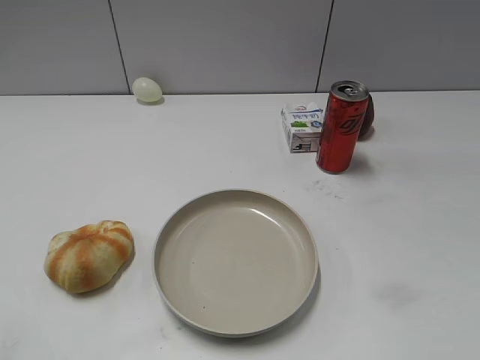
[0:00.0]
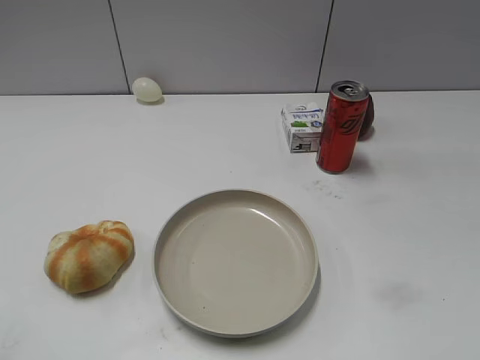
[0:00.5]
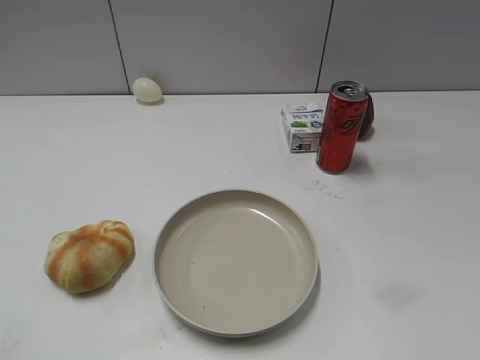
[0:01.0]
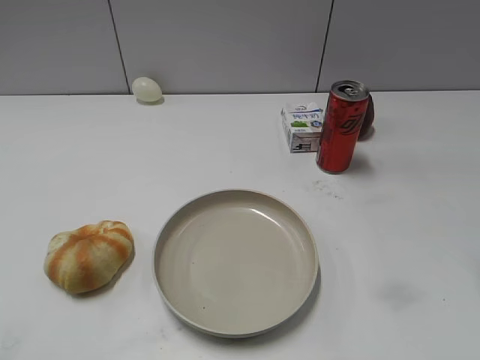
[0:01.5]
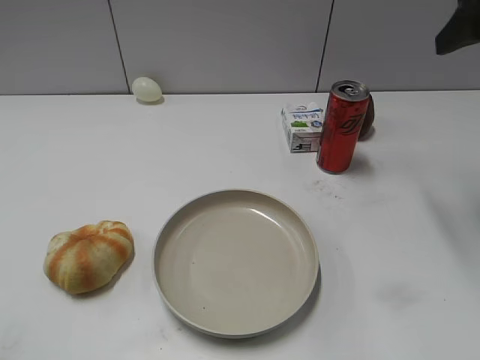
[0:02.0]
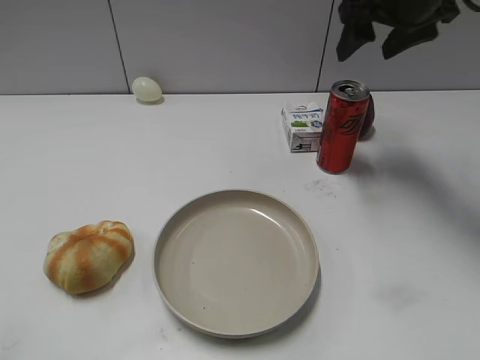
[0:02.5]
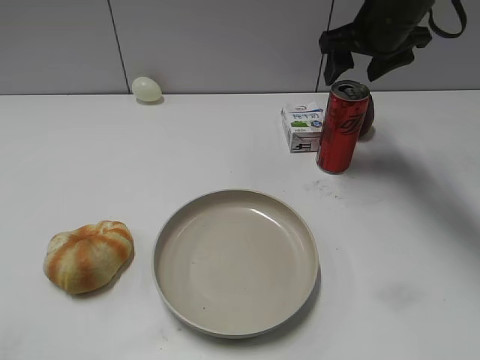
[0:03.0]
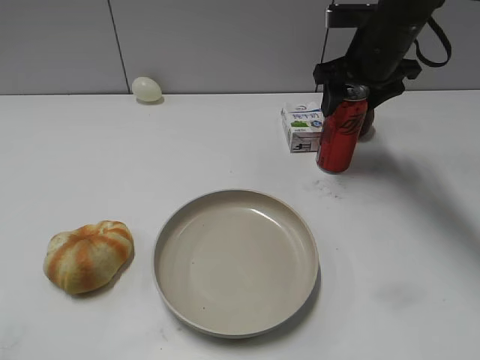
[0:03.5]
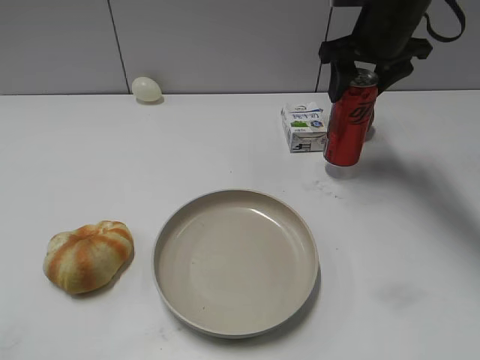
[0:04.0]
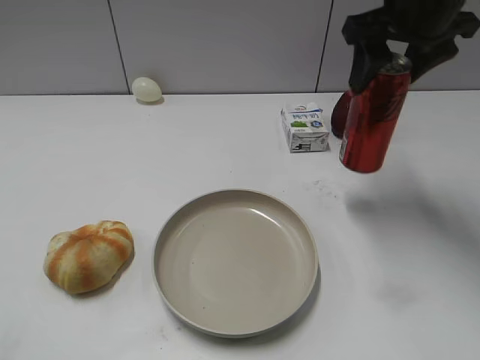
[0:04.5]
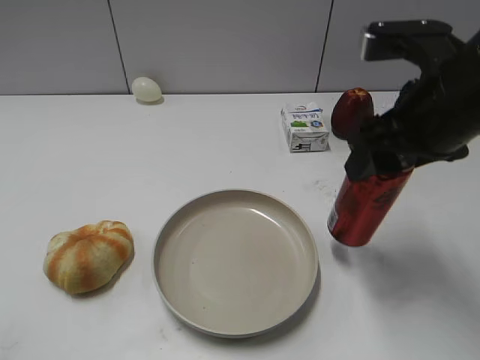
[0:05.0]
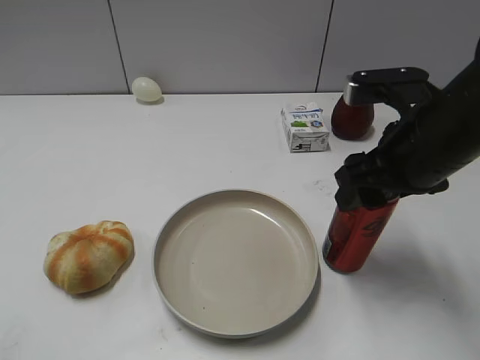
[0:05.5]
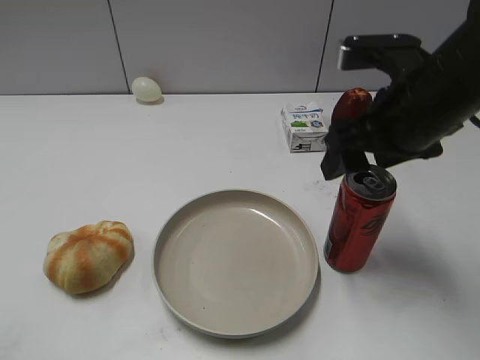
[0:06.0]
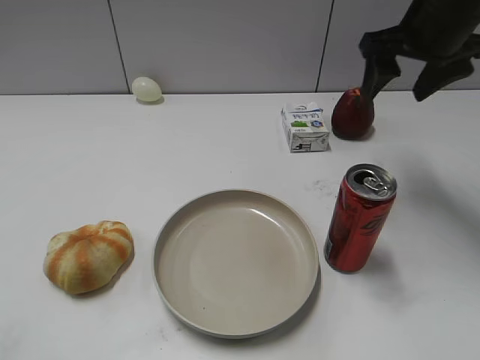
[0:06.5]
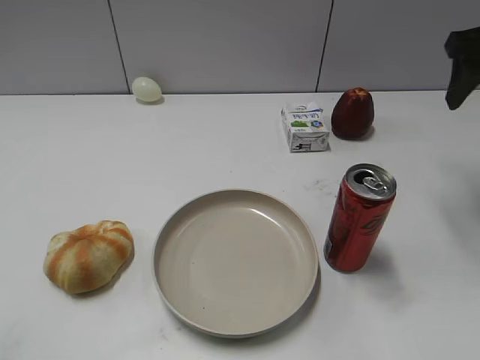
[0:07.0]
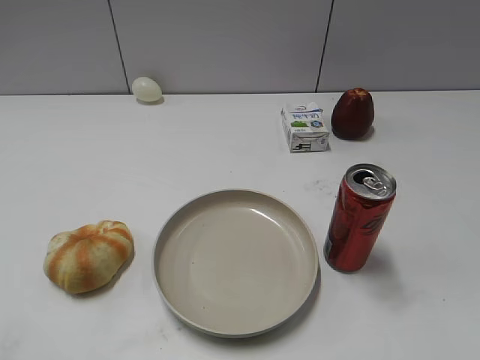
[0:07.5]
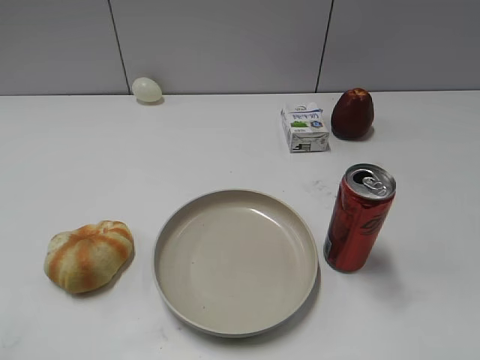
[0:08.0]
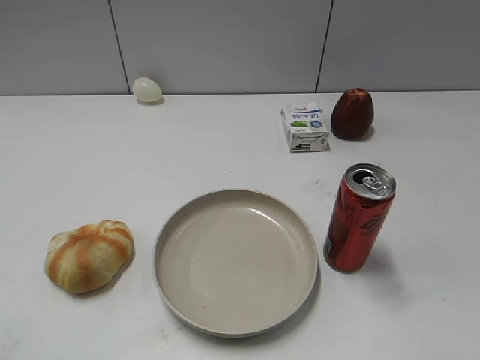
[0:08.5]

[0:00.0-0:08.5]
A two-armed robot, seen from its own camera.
Step, 0:01.0 to 0:03.5: Grasp the cola with right gripper.
Step, 0:04.0 to 0:06.0: Place the cola on the table with right gripper.
0:02.0 to 0:04.0: The right gripper goes about 15 cm forward, to the left and downward, and closes its fingers.
0:04.0 to 0:06.5: The right gripper moves approximately 20 cm backward and comes back, and opens.
0:06.5 to 0:08.5: The right gripper travels backward by roughly 35 cm, and closes.

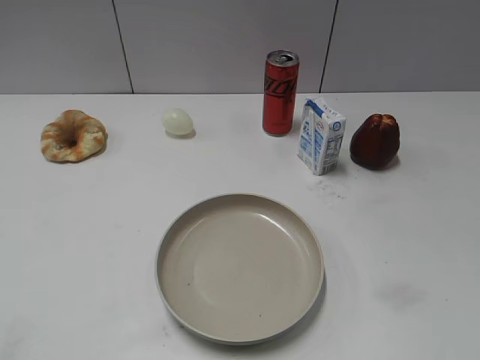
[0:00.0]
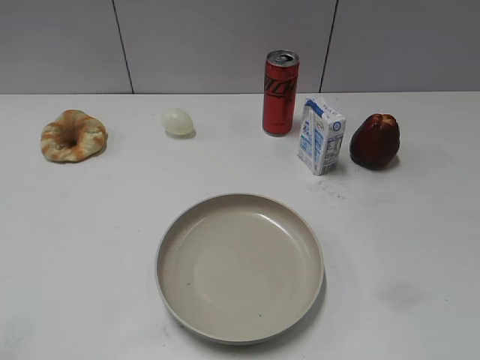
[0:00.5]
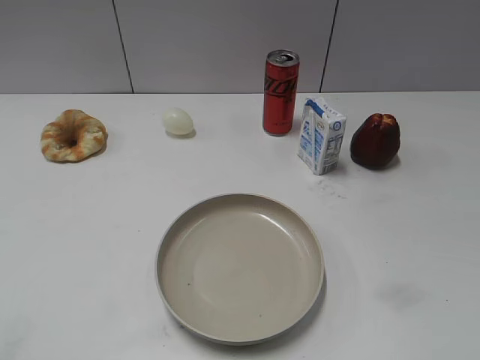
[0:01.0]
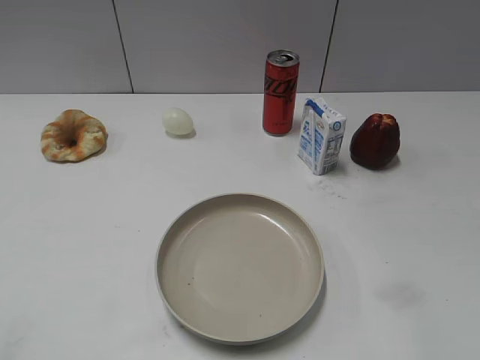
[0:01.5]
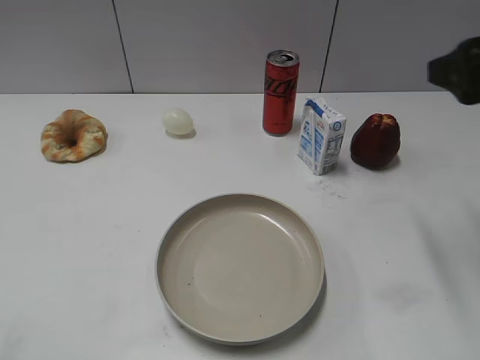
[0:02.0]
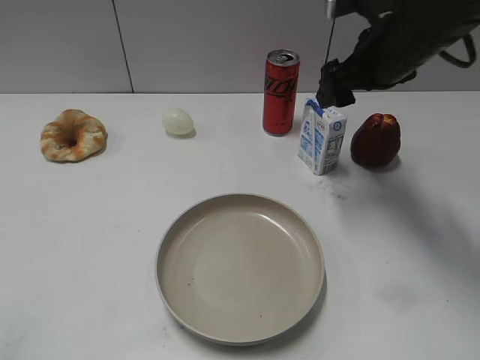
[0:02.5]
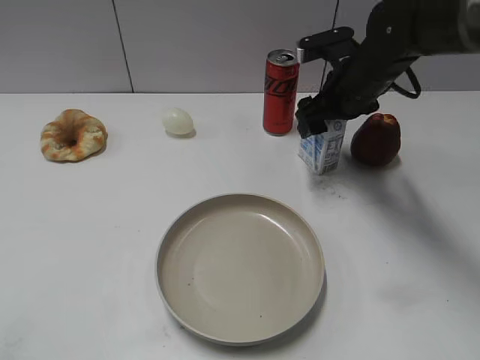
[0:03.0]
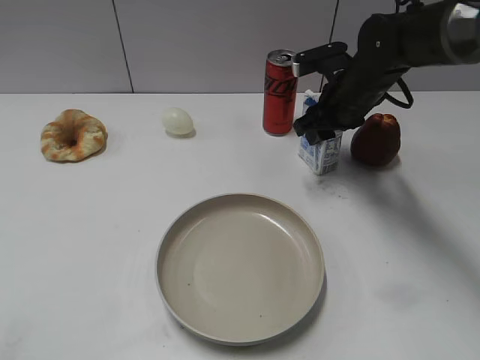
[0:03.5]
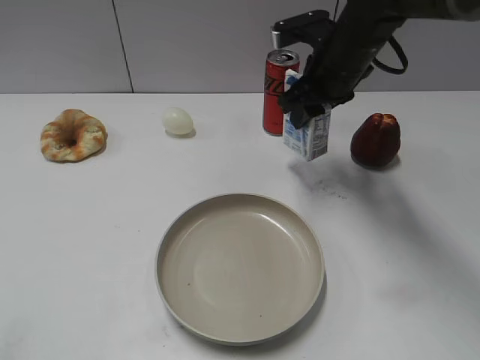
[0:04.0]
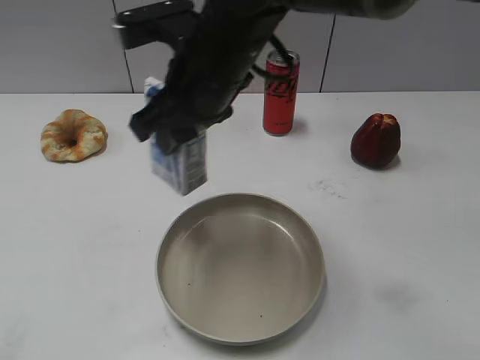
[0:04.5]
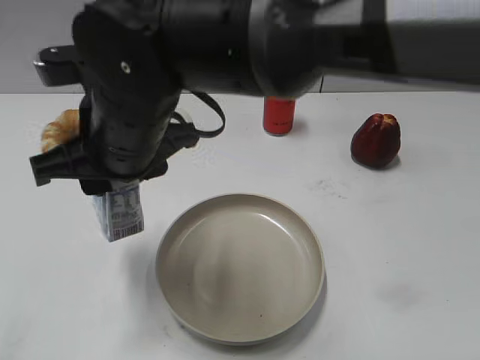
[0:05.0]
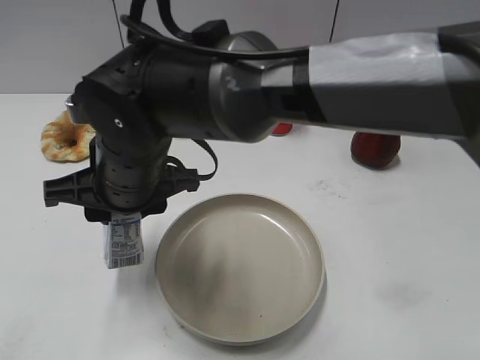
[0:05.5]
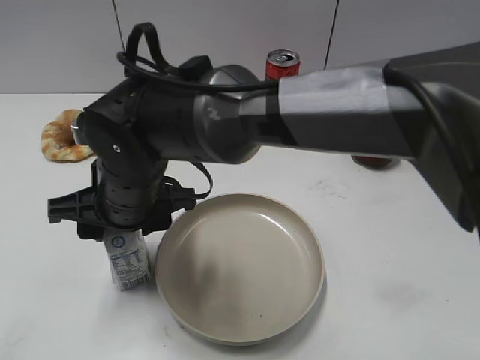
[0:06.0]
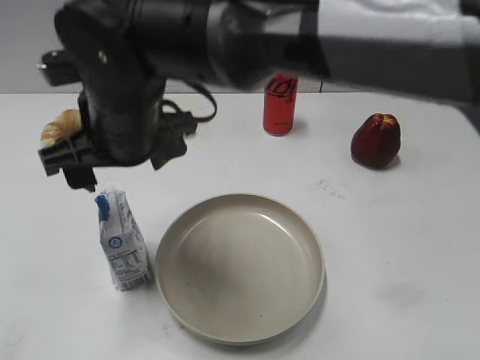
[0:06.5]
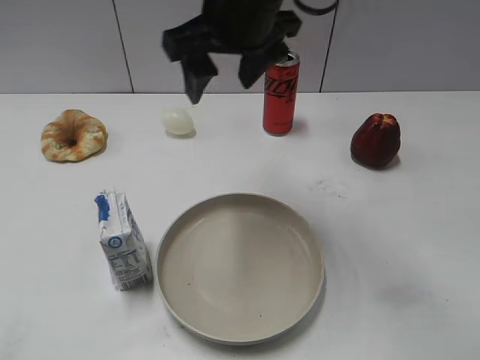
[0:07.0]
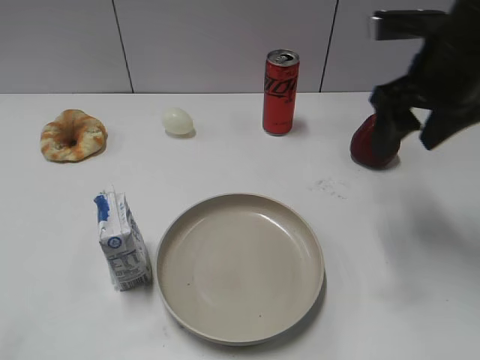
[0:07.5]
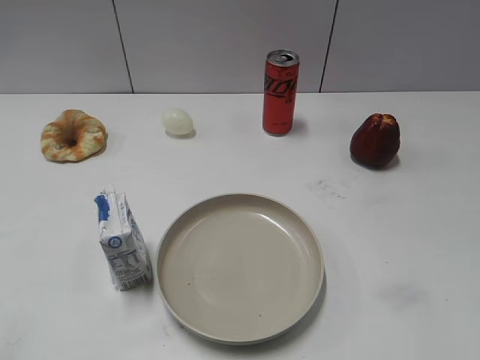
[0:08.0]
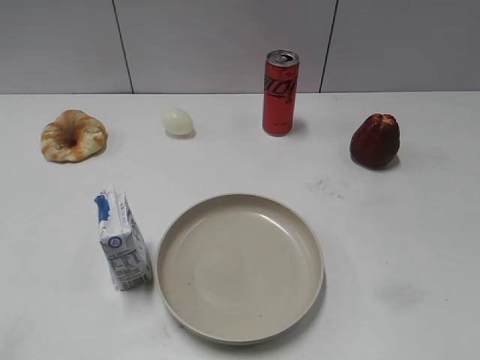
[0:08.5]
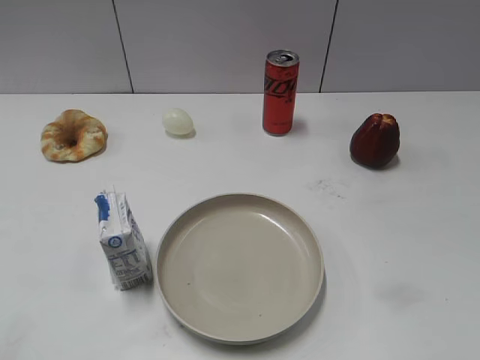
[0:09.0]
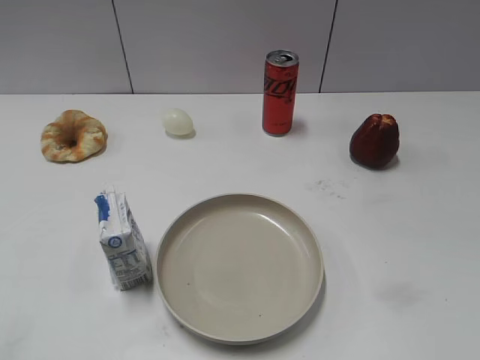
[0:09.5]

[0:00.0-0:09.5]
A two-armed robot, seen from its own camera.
Step, 0:01.0 to 0:03.5: Grasp the milk with right gripper.
Step, 0:04.0 to 0:06.5: Place the milk on the table with right gripper.
0:02.0 to 0:04.0: The right gripper shifts some 25 cm forward, to the left and downward, and closes.
0:04.0 to 0:05.5: The right gripper moves to the left and backward, about 30 cm.
0:05.5 to 0:07.5: The right gripper moves to the right, roughly 30 cm, and opens its fingers.
0:07.5 to 0:09.5: The right gripper is displaced backward by roughly 30 cm.

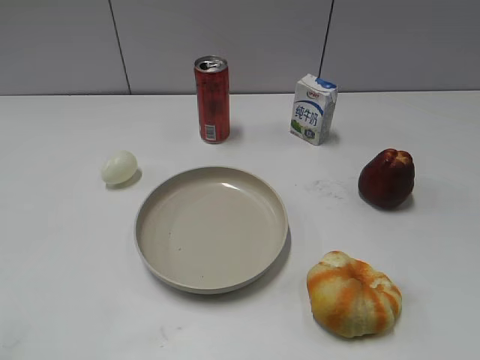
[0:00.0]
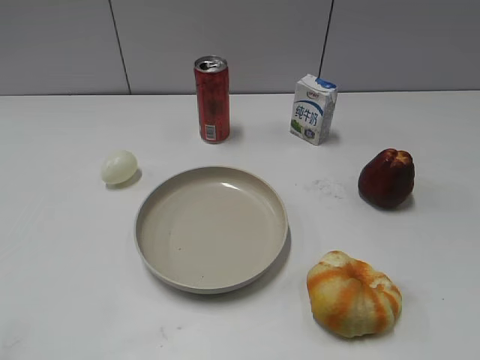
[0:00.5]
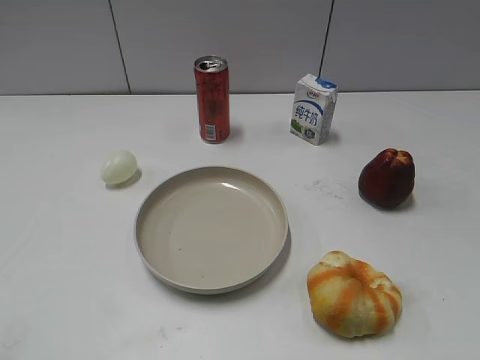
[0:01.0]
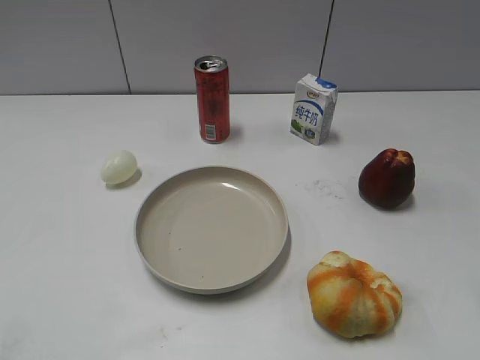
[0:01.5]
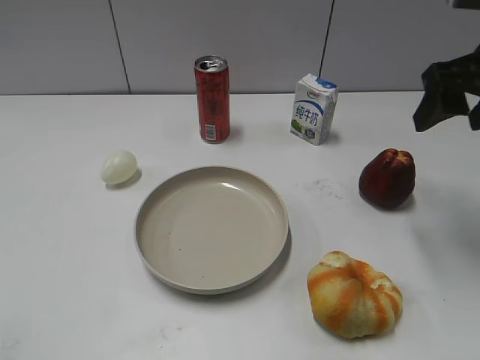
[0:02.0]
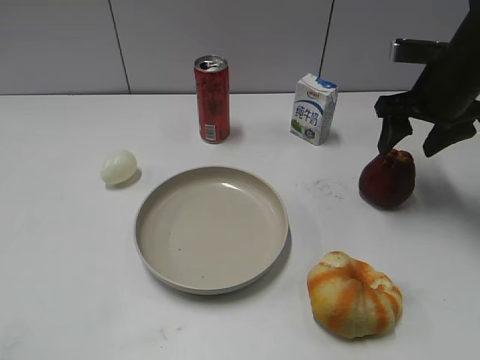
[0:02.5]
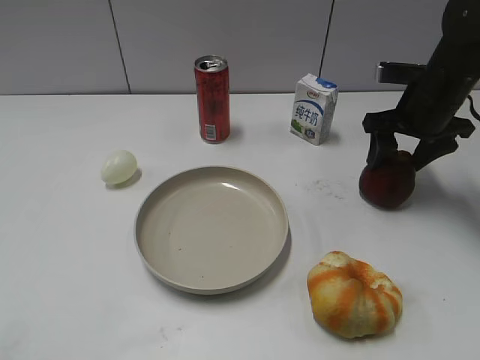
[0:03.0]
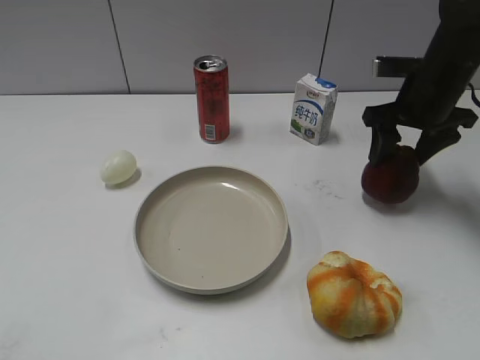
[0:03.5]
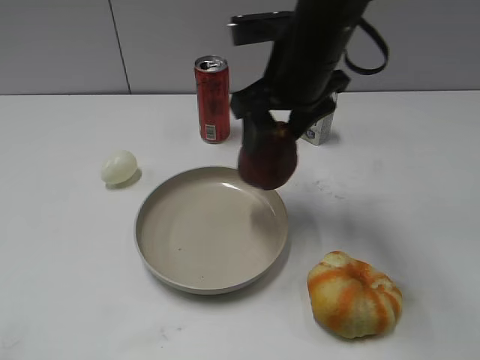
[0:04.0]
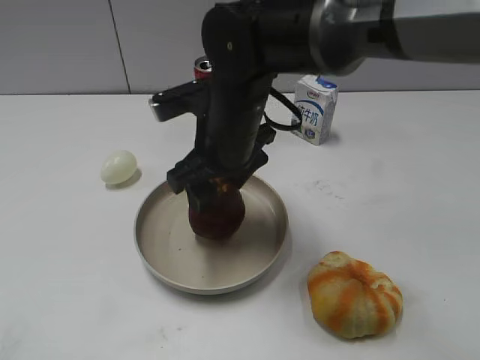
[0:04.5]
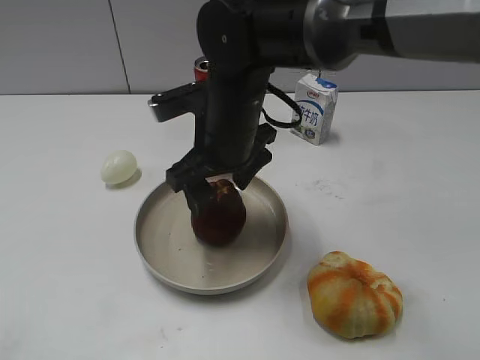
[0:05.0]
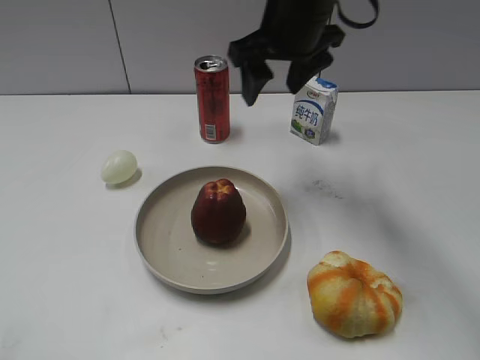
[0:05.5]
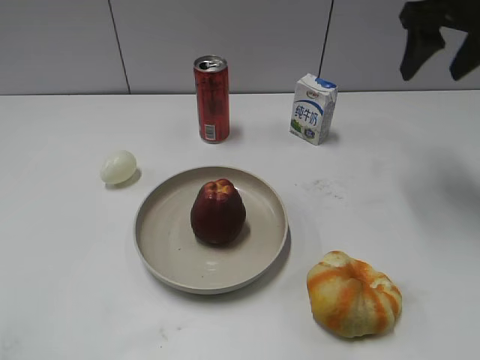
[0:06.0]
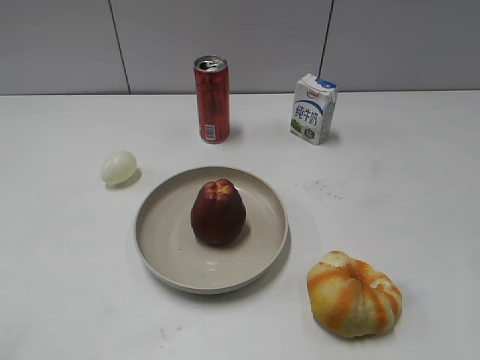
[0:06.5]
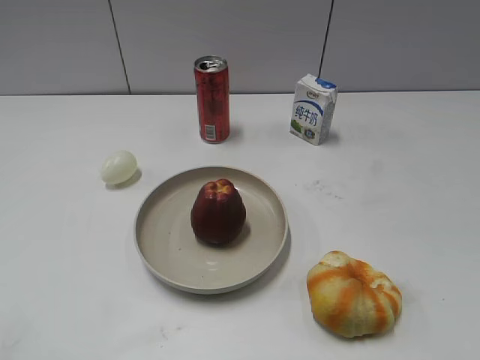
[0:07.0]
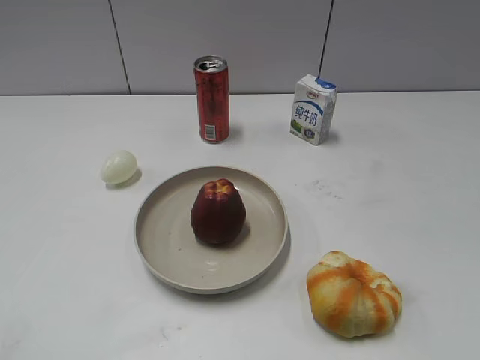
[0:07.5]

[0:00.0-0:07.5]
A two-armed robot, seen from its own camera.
Step, 0:01.0 to 0:03.0: Grasp the apple with right gripper.
Step, 0:03.5 to 0:05.0: Place the apple on the plate with right gripper.
0:02.0 to 0:04.0: The right gripper goes approximately 20 cm to the left.
0:04.0 to 0:05.5: The right gripper travels forward by approximately 5 cm, goes downward and returns, about 5 cm each way, and opens.
0:05.5 to 0:07.5: The right gripper heads backward and to the right, covering some 40 cm.
